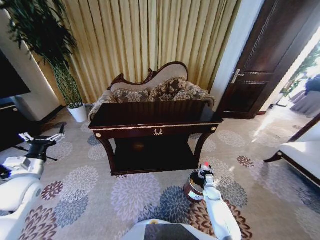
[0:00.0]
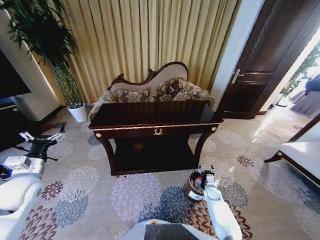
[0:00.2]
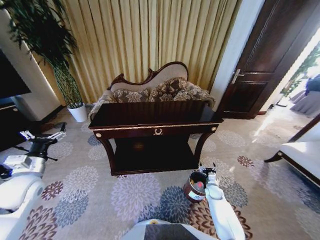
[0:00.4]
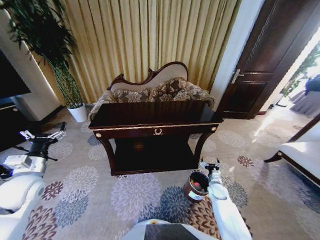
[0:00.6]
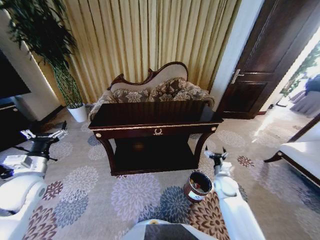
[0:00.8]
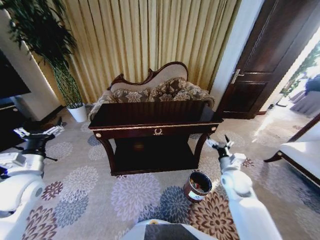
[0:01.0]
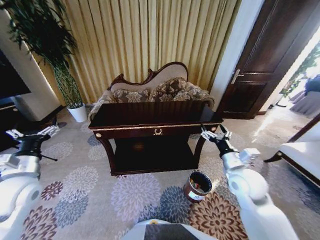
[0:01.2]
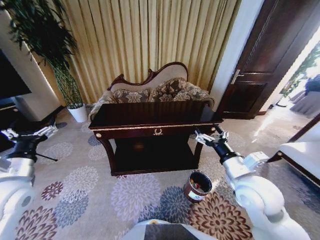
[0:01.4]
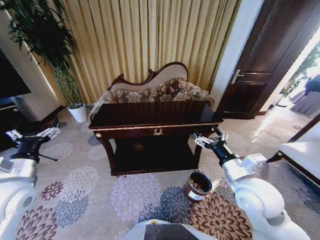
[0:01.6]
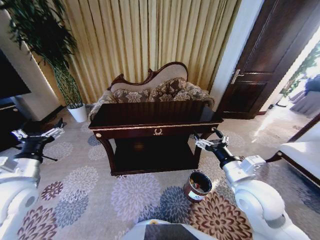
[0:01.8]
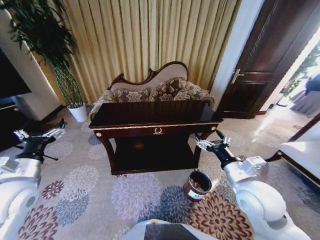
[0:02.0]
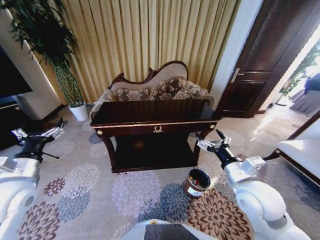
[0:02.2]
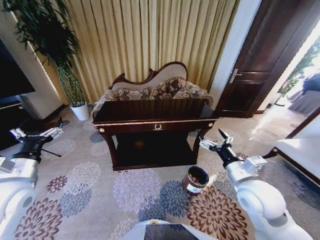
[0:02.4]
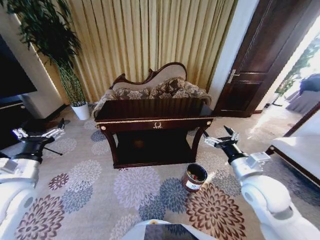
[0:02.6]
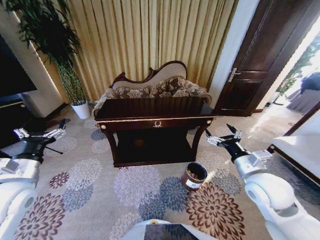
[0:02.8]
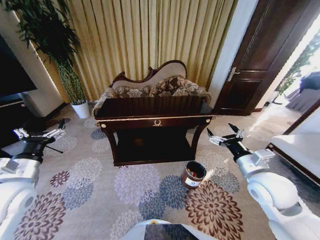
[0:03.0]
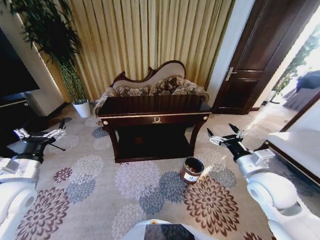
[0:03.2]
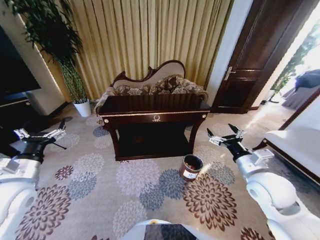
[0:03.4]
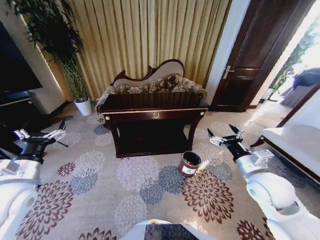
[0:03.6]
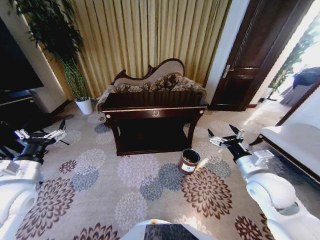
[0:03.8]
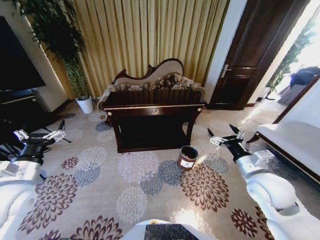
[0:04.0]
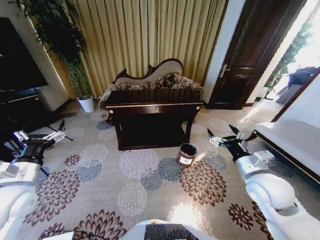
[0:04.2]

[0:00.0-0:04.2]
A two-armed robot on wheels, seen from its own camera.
Task of the whole recording: Move to the front of the table and place the trash on the table into the trash bin.
0:00.0 to 0:01.4: The right gripper is displaced upward by some 40 cm, and opens up. The left gripper goes approximately 5 cm upward.

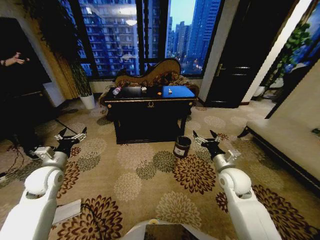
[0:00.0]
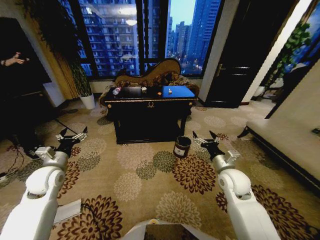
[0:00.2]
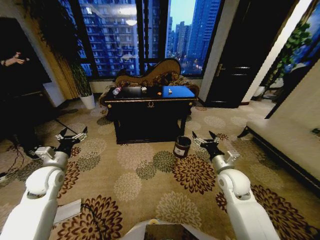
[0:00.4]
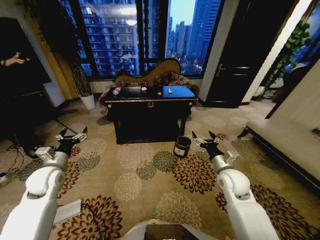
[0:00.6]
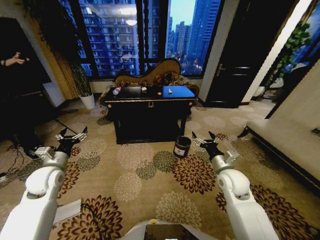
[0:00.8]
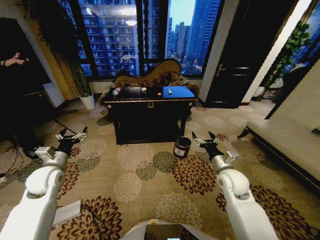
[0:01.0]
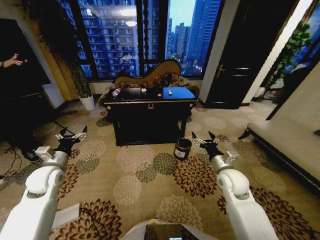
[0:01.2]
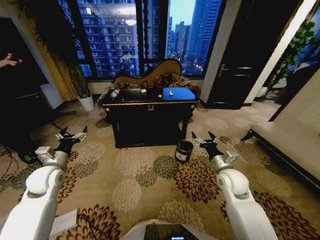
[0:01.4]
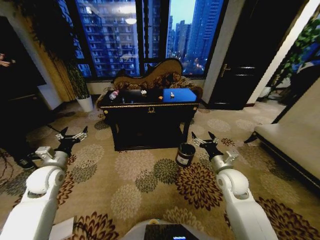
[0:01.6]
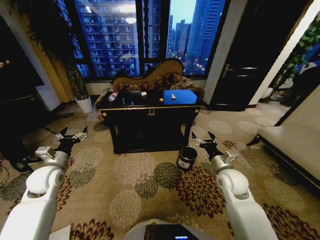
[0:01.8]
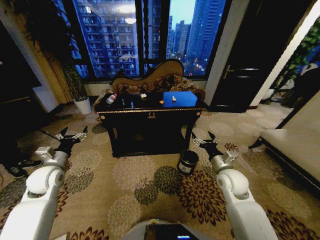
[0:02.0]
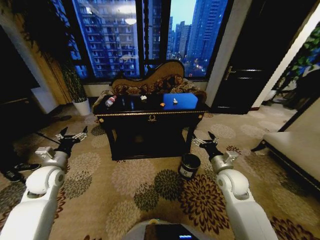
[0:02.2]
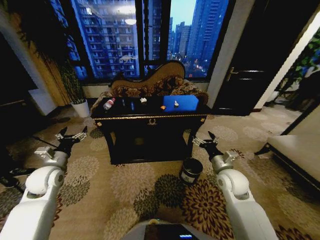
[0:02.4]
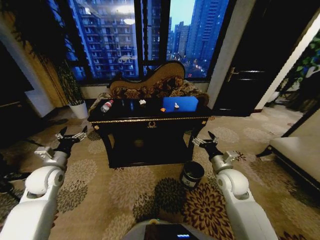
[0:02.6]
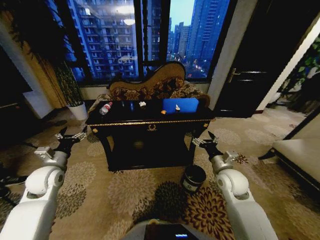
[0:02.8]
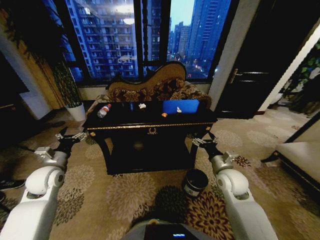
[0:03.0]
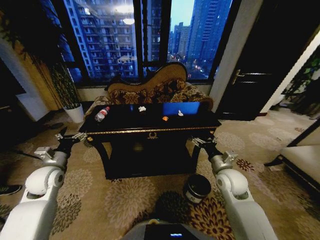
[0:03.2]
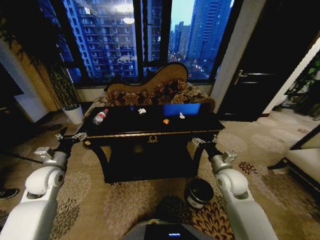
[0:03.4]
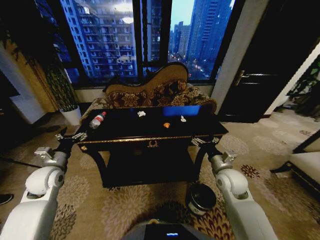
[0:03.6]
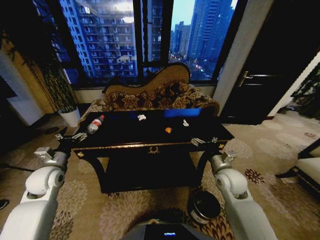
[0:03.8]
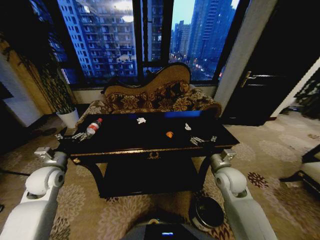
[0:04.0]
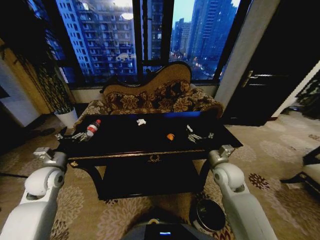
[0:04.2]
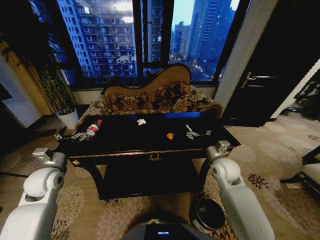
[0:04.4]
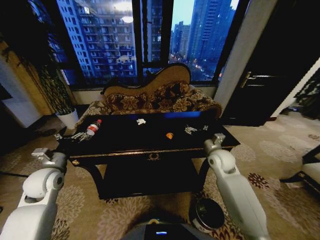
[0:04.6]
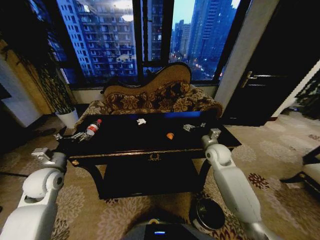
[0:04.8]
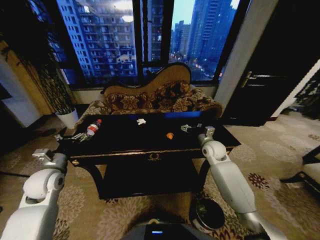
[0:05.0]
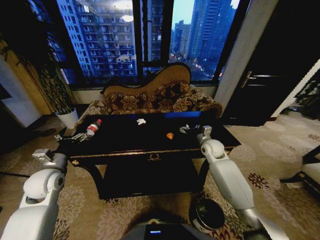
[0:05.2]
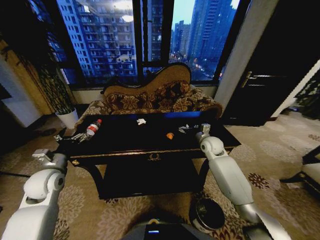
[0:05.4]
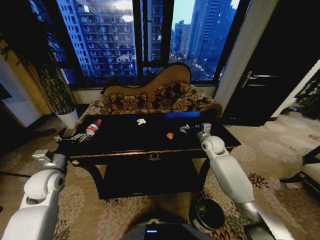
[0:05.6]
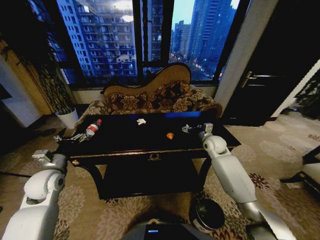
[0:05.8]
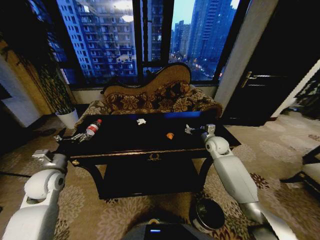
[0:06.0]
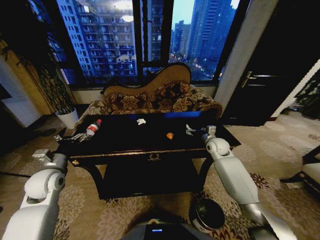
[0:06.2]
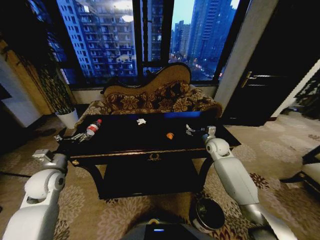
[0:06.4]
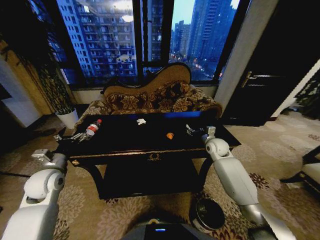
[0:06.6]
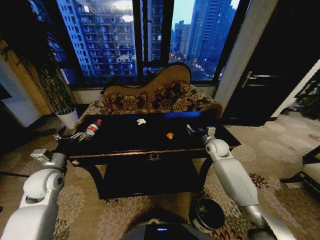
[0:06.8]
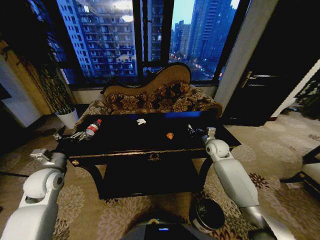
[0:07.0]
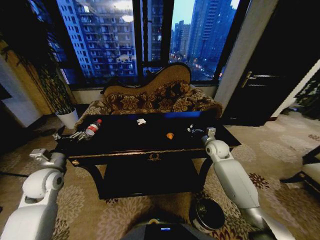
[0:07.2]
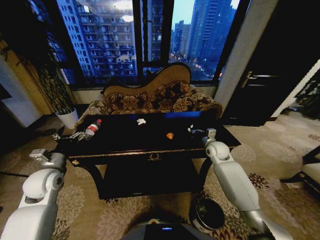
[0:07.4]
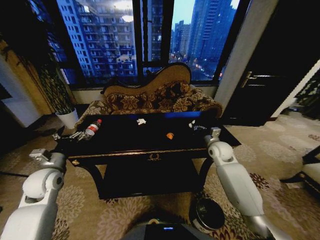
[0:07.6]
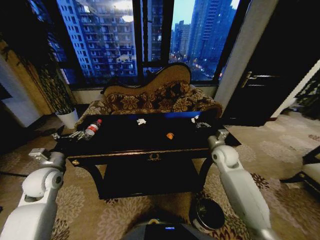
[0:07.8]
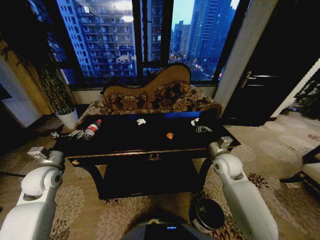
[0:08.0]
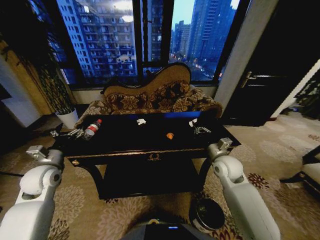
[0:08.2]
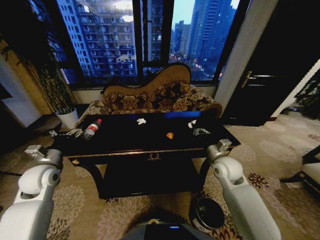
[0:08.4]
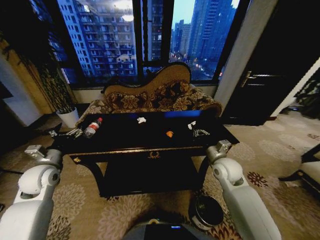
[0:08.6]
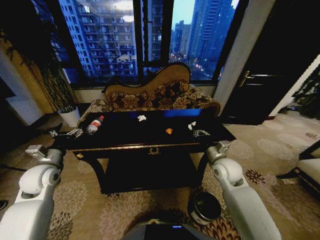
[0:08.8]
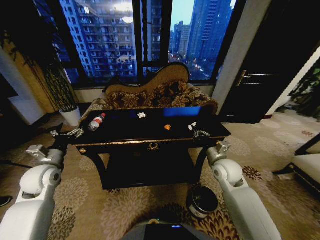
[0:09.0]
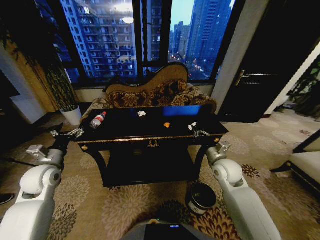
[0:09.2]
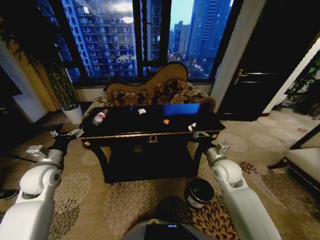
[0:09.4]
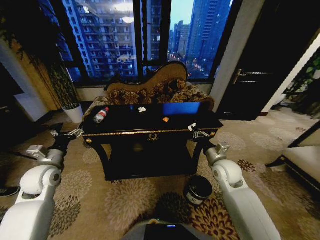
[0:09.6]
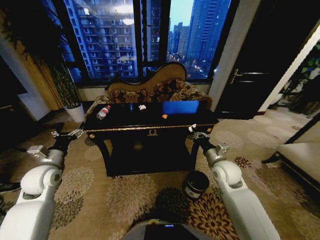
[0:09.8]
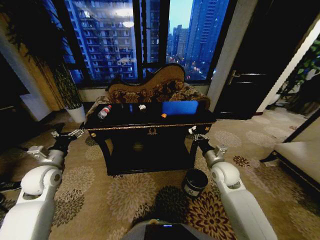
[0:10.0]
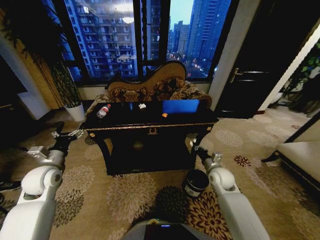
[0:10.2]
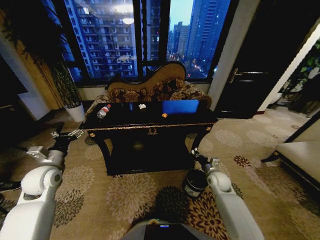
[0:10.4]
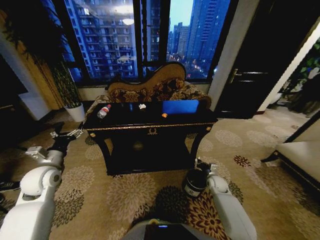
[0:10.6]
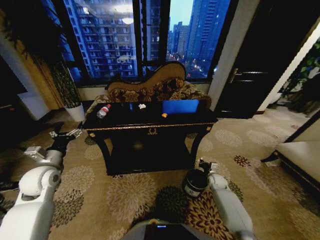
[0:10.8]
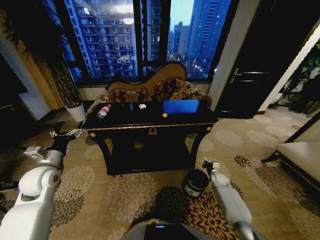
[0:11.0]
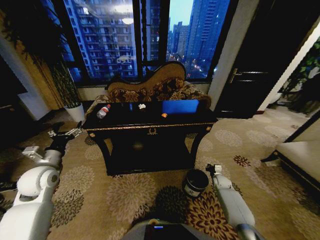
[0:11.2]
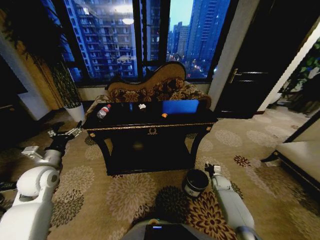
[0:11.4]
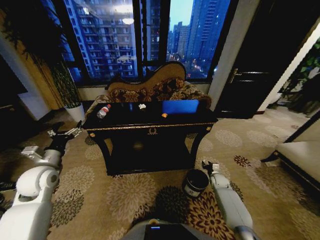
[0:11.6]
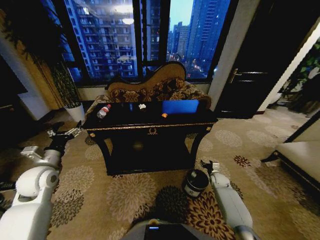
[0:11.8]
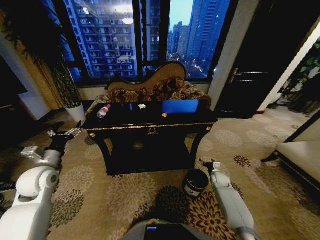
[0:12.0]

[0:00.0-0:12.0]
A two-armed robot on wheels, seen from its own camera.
Task of the whole recording: Move to the front of the table and place the trash on the table into the trash bin.
0:04.4 to 0:06.0: The right gripper heads forward, covering roughly 15 cm.
0:06.0 to 0:07.6: The right gripper closes up.
0:07.6 to 0:09.0: The right gripper shifts approximately 10 cm backward.
0:09.0 to 0:10.4: The right gripper shifts some 15 cm downward.
0:10.4 to 0:12.0: The right gripper shifts about 15 cm downward and to the right, and opens its fingers.

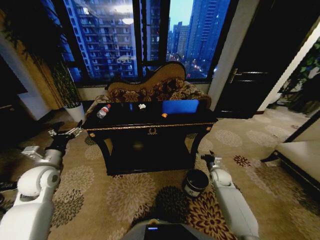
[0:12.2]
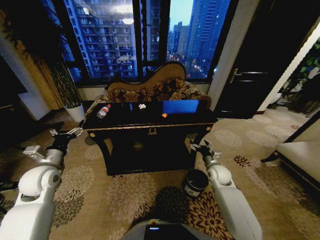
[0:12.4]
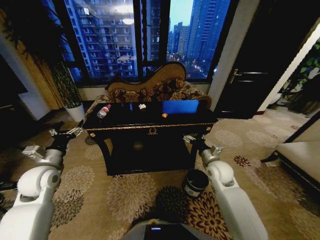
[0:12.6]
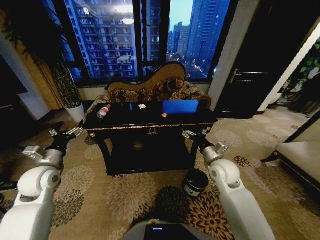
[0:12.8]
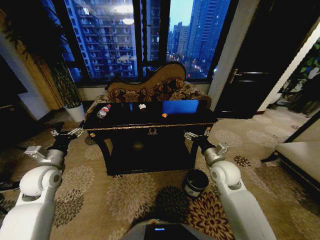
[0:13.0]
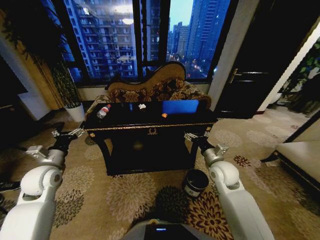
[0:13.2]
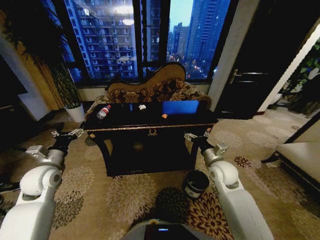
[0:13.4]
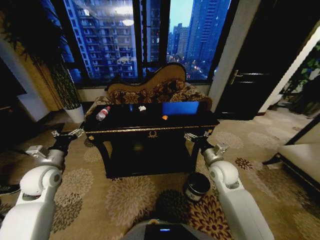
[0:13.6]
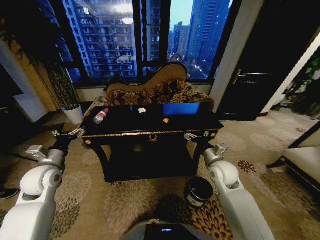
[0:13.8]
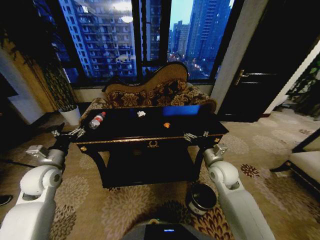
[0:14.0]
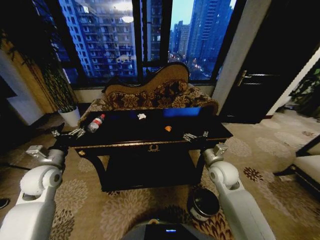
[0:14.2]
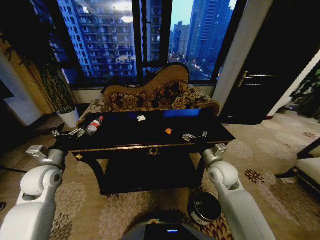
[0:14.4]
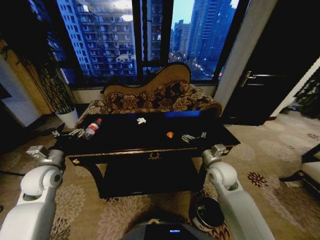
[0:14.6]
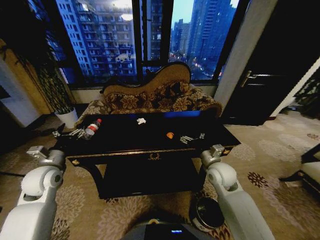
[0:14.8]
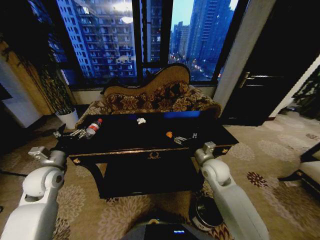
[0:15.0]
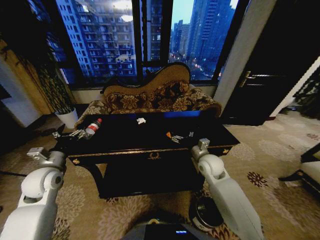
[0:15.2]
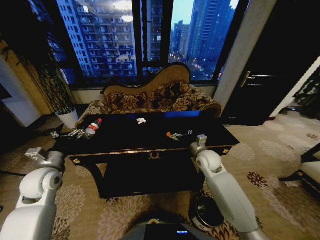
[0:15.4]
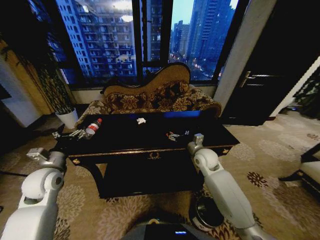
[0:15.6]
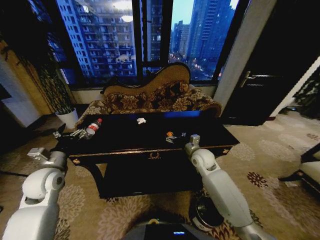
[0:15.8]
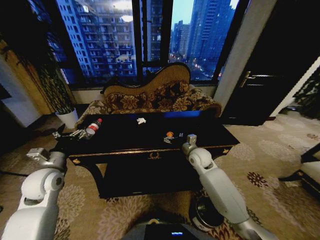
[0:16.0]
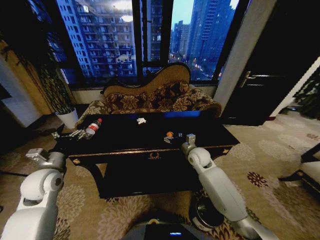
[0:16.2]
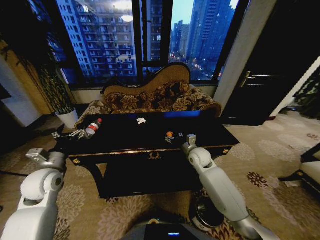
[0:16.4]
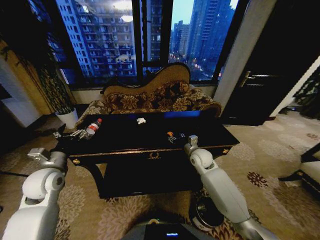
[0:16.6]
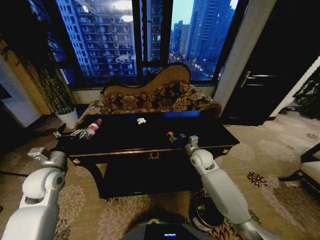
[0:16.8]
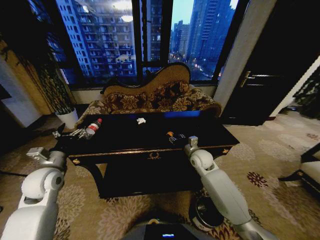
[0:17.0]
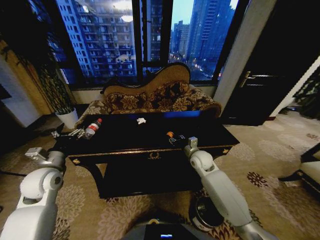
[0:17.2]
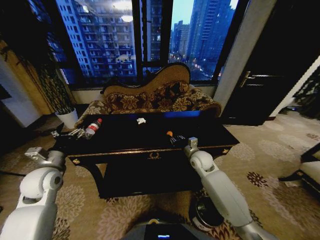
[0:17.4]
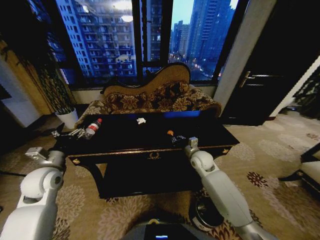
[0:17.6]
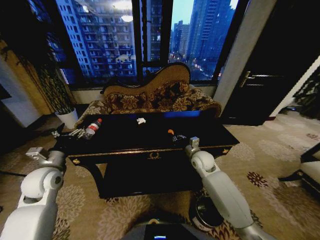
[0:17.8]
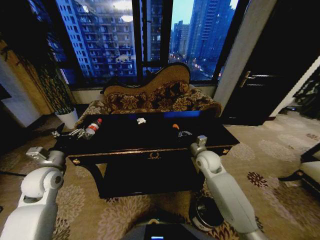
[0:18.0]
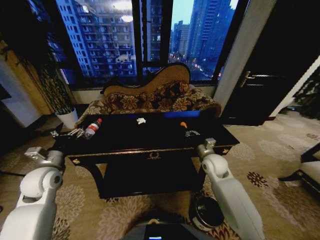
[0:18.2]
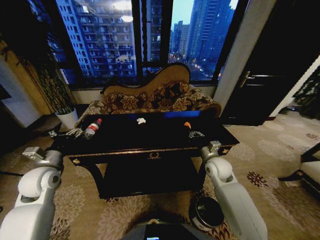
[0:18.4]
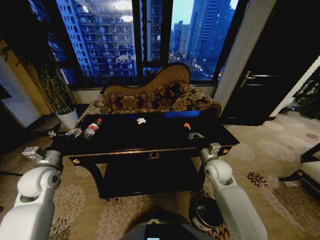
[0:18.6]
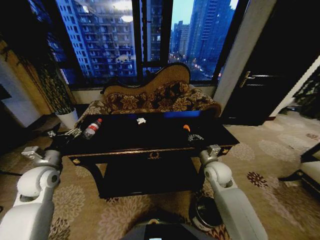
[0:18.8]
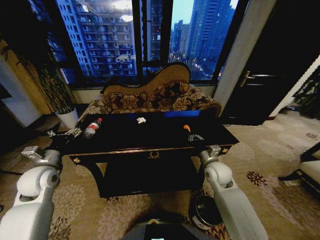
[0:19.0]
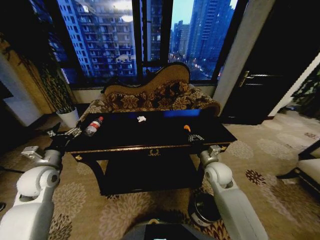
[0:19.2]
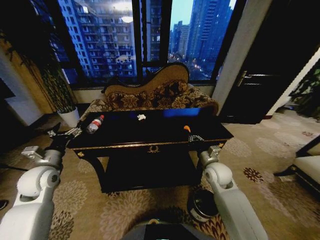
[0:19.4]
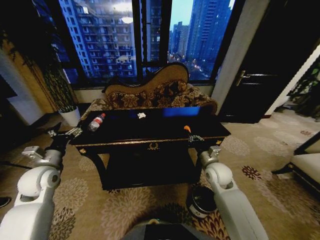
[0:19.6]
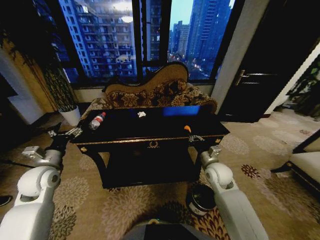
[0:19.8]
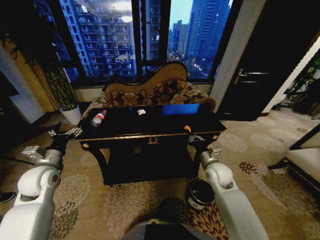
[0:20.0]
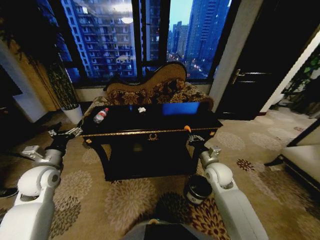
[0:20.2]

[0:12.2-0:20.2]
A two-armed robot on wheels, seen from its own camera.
Task of the whole recording: Move to the front of the table and place the trash on the table into the trash bin.
0:12.2 to 0:13.8: The right gripper heads upward and to the left, covering some 20 cm.
0:13.8 to 0:15.4: The right gripper goes roughly 5 cm forward.
0:15.4 to 0:17.0: The right gripper closes up.
0:17.0 to 0:18.6: The right gripper heads backward, covering roughly 5 cm, and closes.
